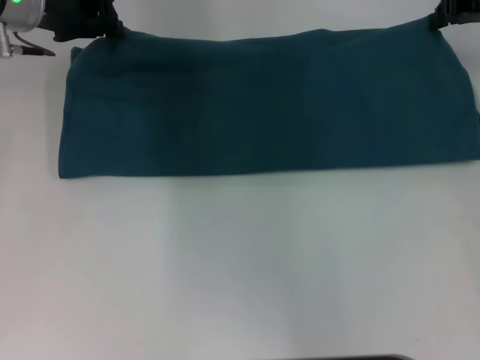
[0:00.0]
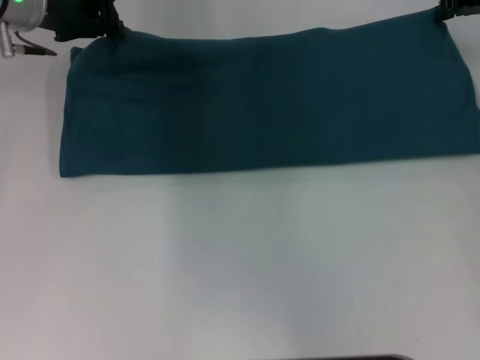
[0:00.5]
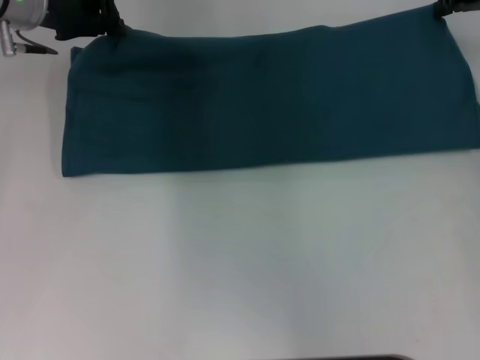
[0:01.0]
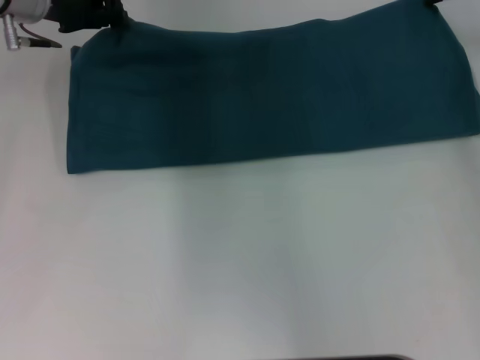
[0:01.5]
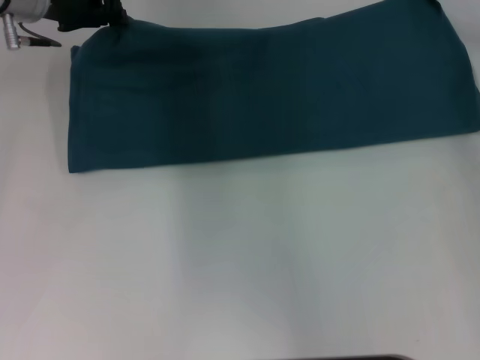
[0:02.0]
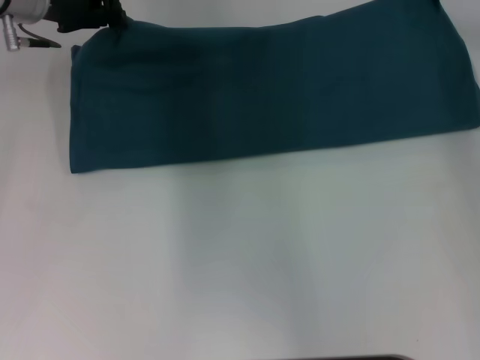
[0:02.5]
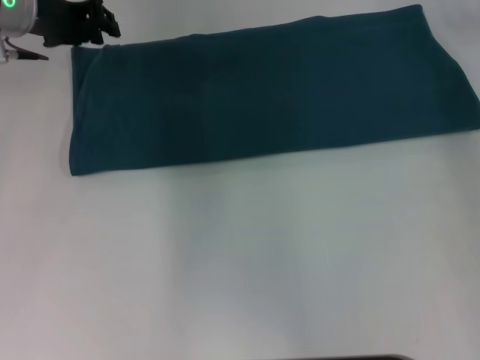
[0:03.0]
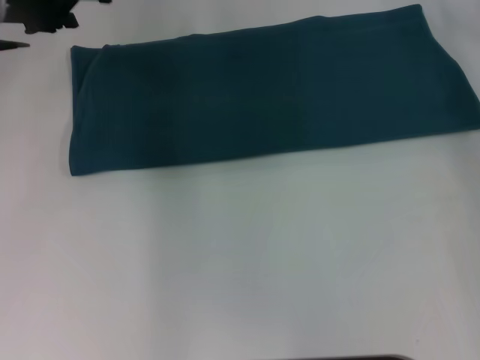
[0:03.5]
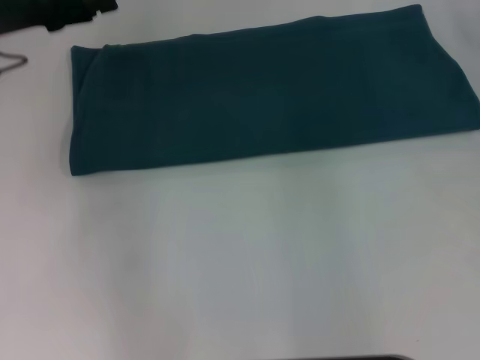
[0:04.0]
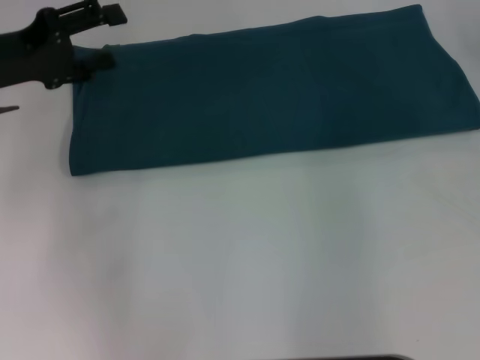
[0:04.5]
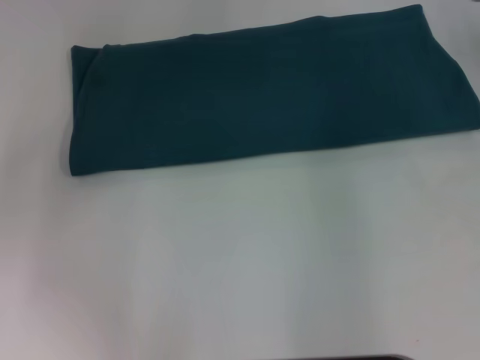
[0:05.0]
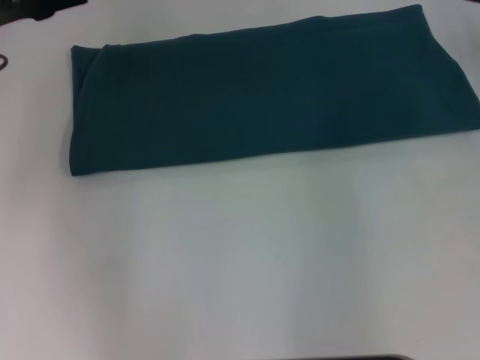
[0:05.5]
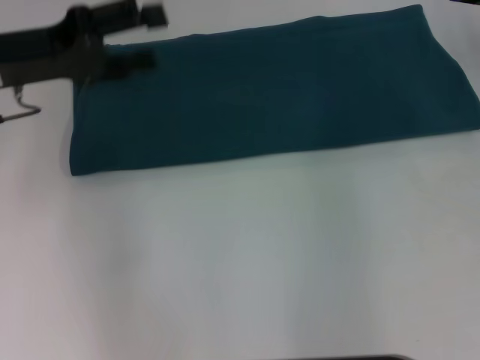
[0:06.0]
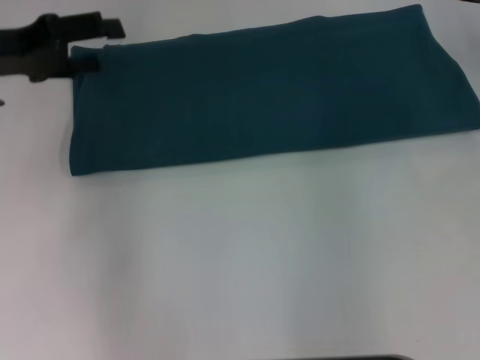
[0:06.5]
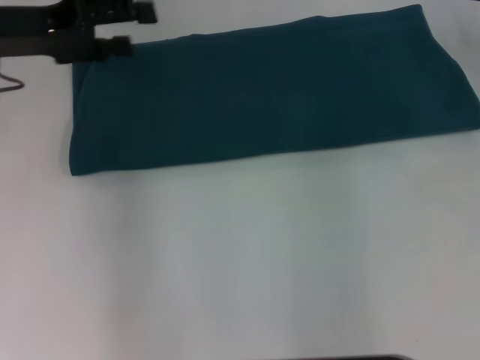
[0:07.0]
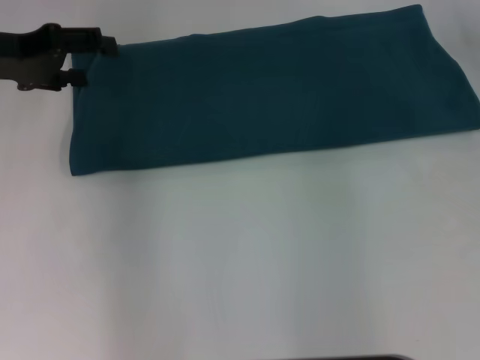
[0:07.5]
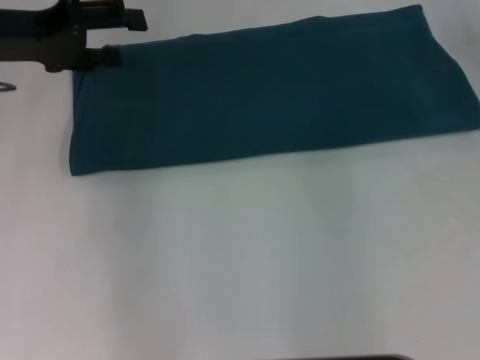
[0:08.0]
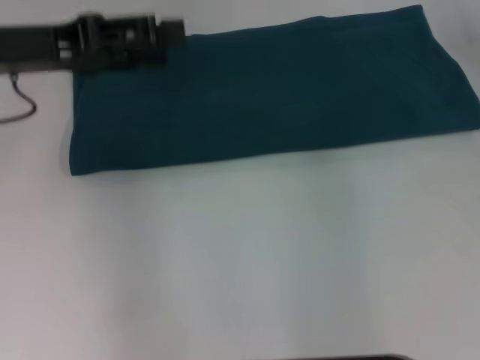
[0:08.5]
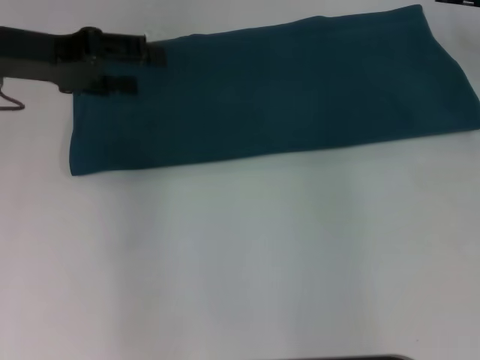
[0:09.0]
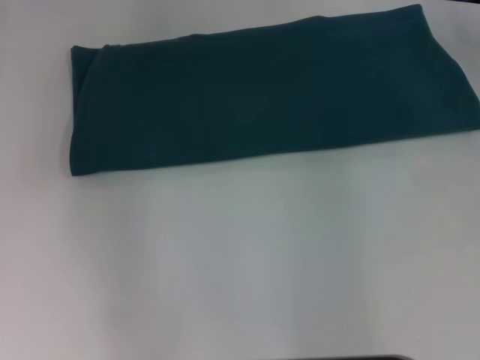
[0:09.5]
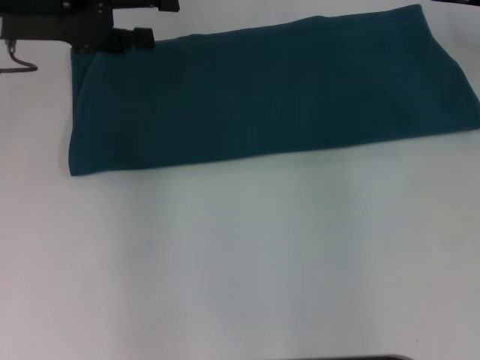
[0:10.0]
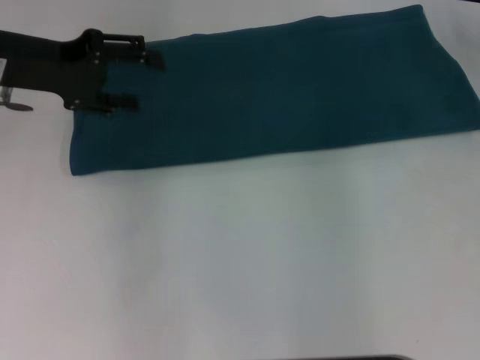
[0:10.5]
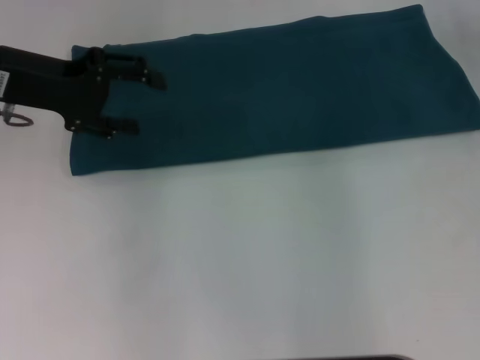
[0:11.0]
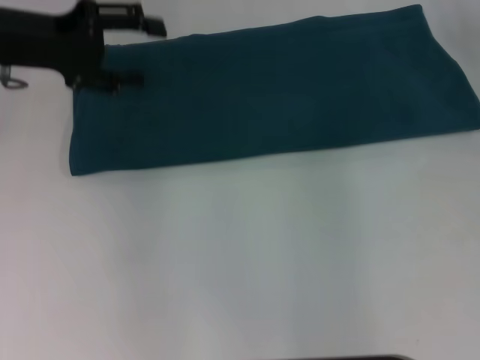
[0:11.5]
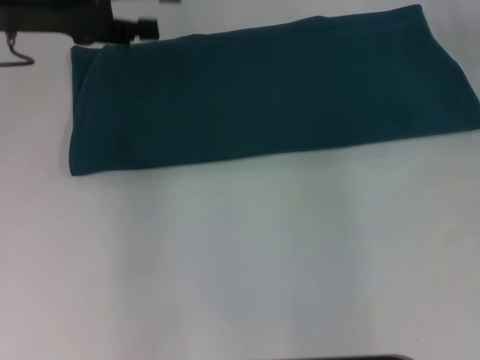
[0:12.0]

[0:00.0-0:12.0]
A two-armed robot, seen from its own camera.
Step, 0:00.0 to 0:03.0: Fold the clothes to the right.
0:00.0 to 0:02.0: The grippers stay close to where they were, moving slightly.
0:02.0 to 0:04.0: The right gripper moves backward, approximately 5 cm, and opens. The left gripper moves backward and to the left, roughly 10 cm, and opens.

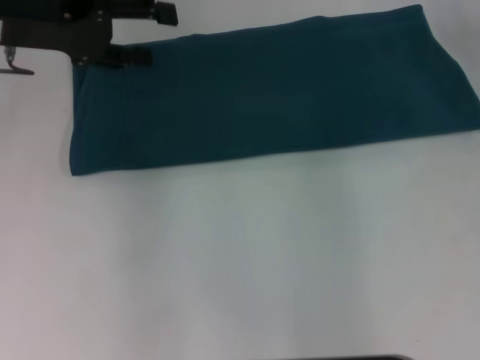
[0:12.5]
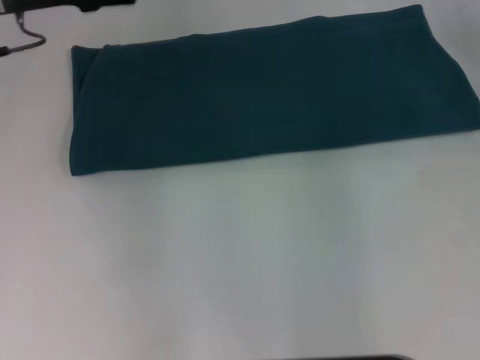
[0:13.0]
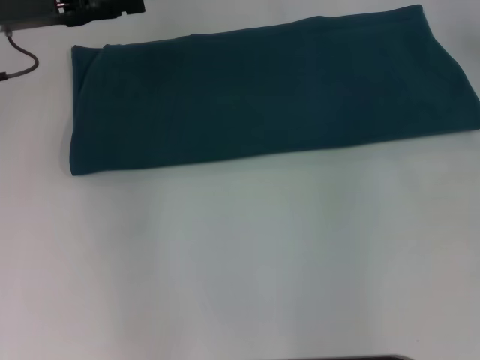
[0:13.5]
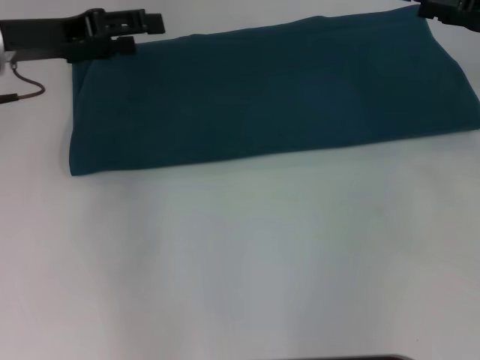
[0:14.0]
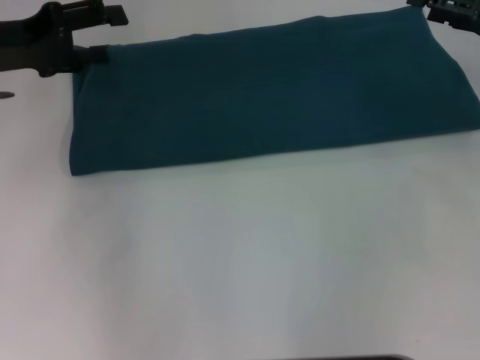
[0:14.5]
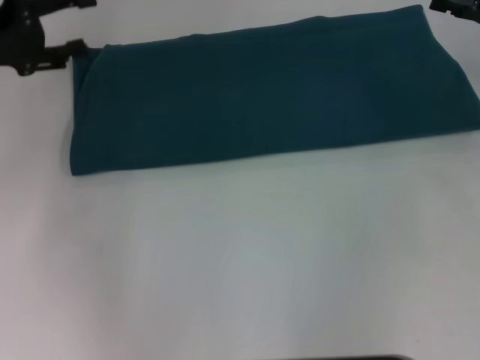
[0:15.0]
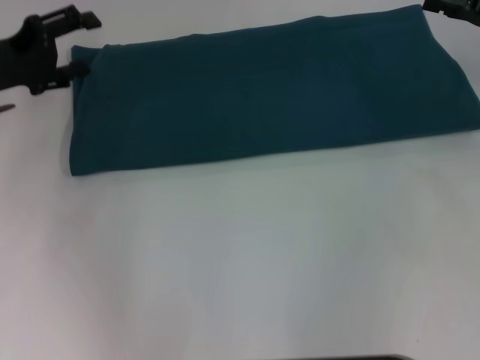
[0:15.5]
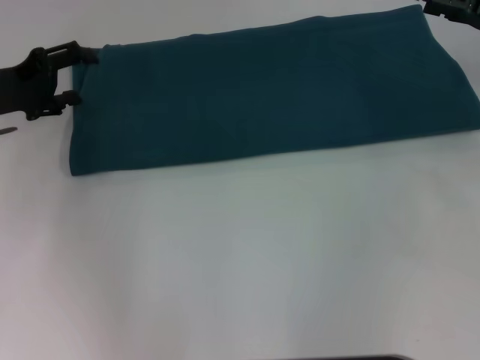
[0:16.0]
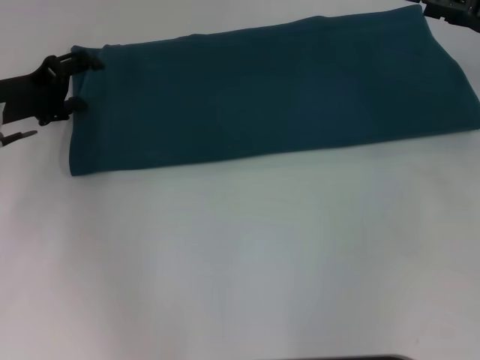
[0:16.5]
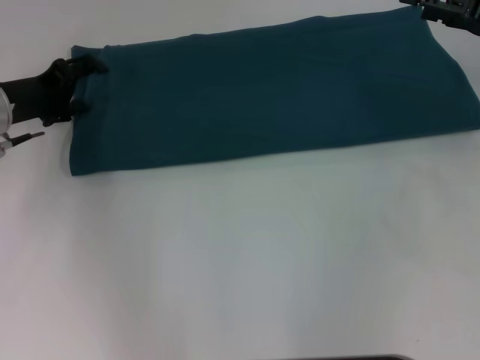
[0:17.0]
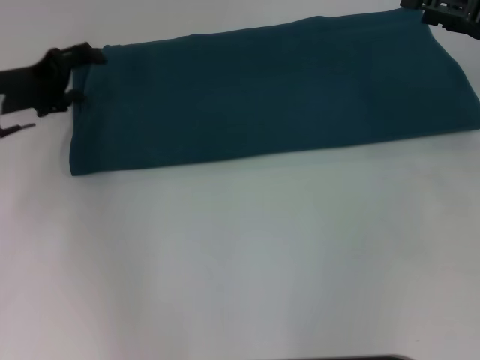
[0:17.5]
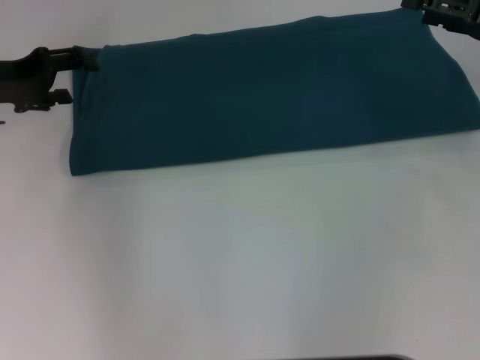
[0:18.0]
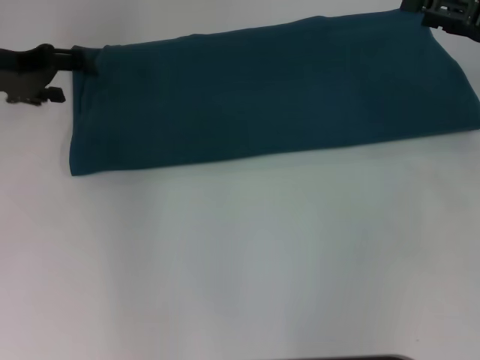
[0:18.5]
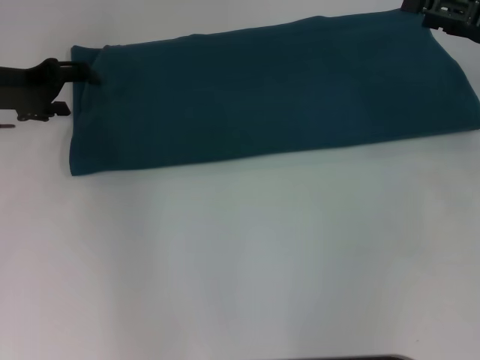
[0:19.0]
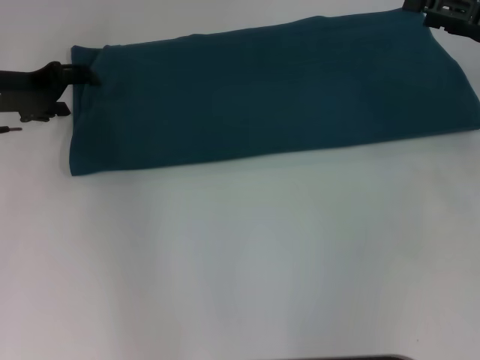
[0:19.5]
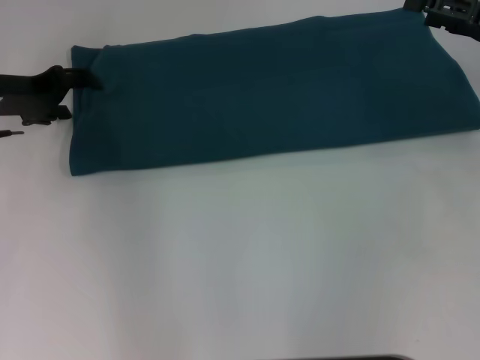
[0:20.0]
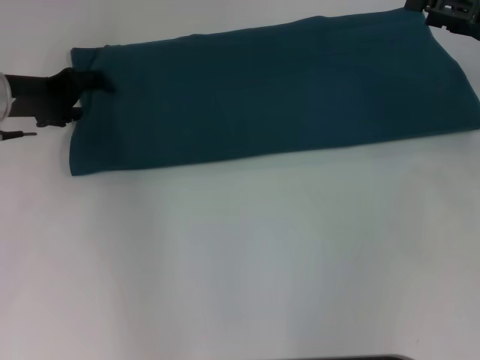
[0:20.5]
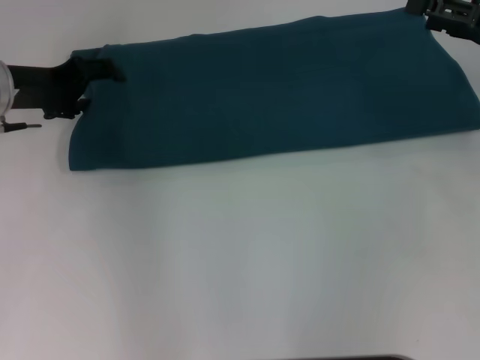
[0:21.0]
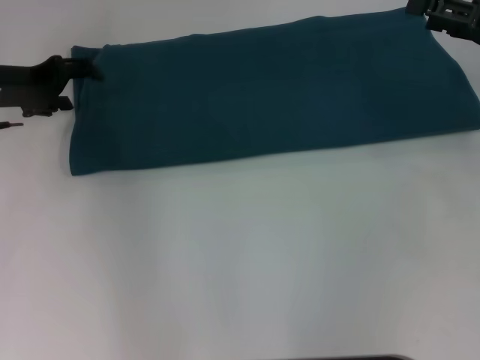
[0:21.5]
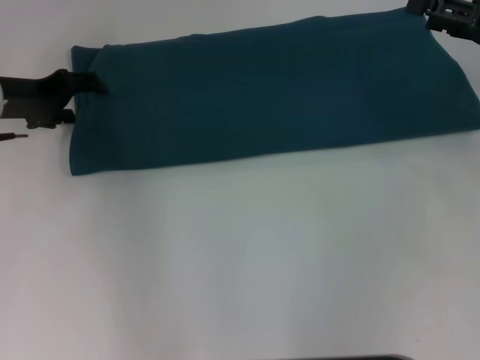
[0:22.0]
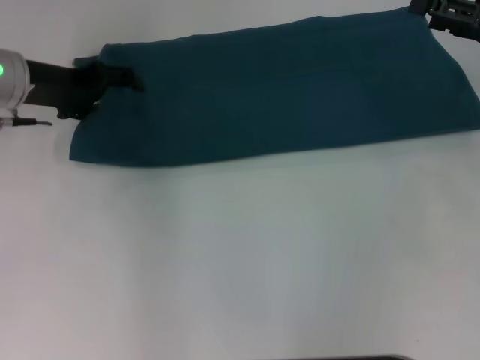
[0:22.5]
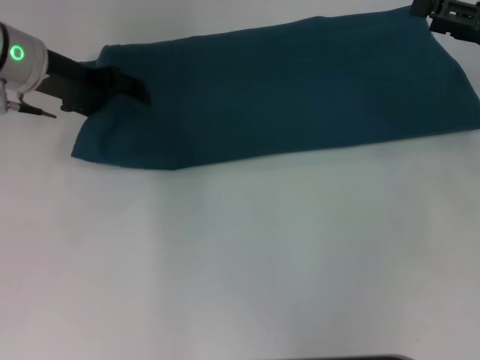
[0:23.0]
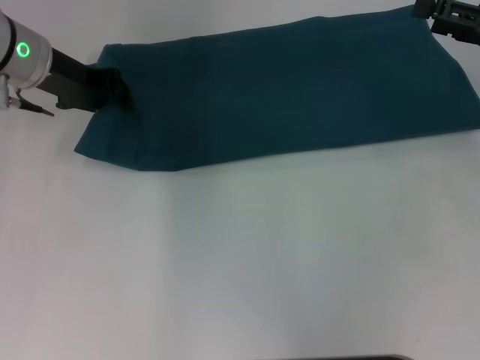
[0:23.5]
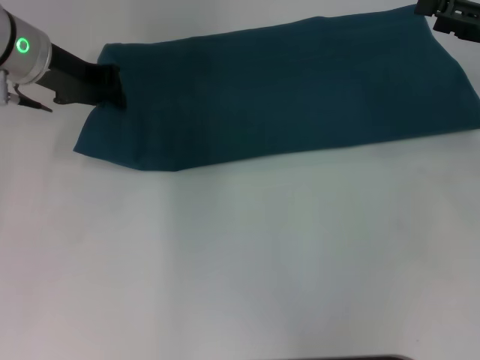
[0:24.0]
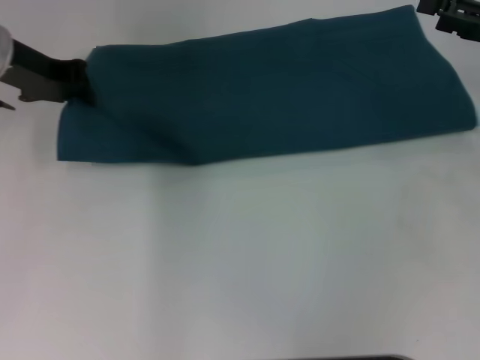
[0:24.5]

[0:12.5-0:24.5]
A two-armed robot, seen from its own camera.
0:12.5 to 0:14.5: The left gripper changes place by some 5 cm, while the right gripper travels backward by approximately 5 cm, and opens up.
0:14.5 to 0:16.5: The left gripper shifts approximately 10 cm downward.
0:16.5 to 0:18.5: The left gripper shifts approximately 5 cm upward.
0:18.5 to 0:22.5: There are only small adjustments of the grippers.
0:22.5 to 0:24.5: The left gripper closes its fingers.

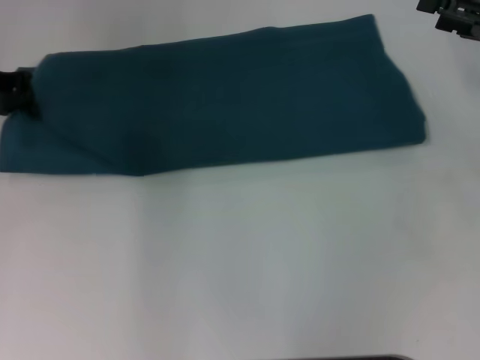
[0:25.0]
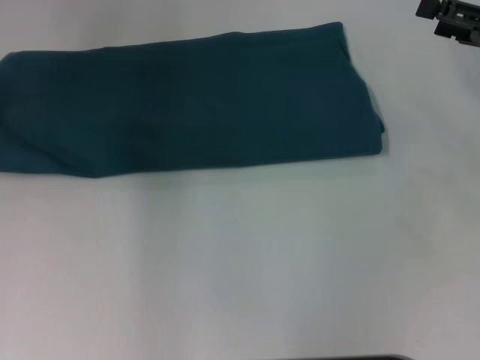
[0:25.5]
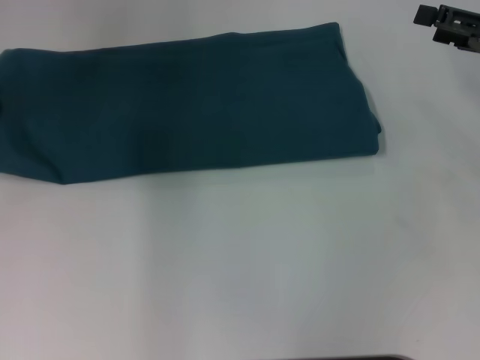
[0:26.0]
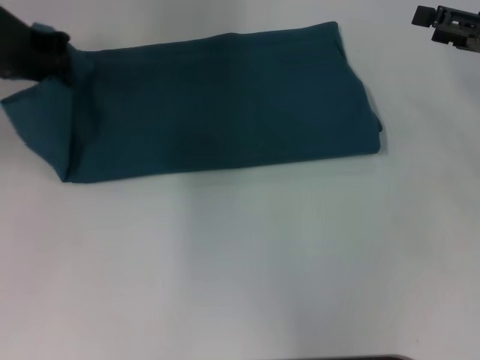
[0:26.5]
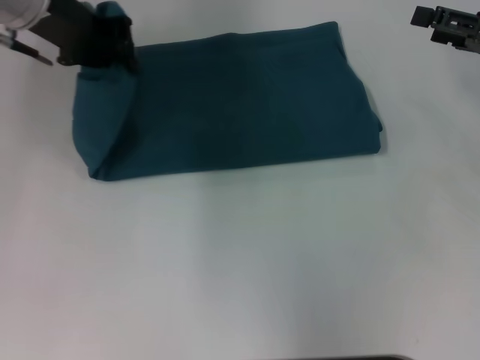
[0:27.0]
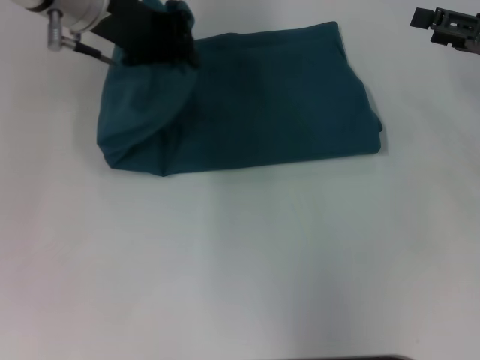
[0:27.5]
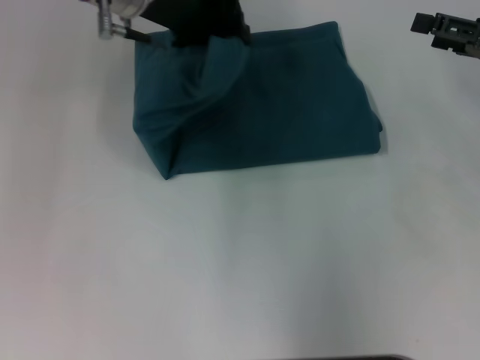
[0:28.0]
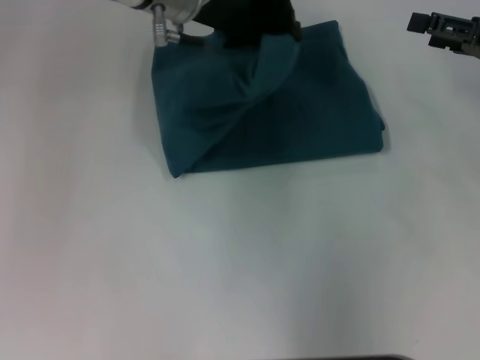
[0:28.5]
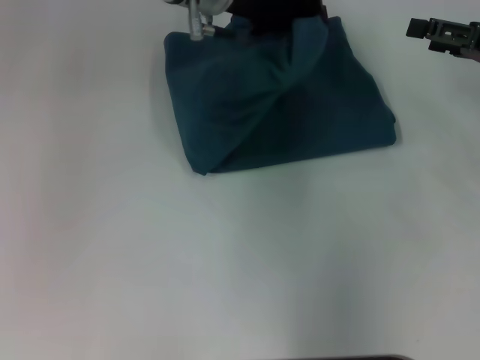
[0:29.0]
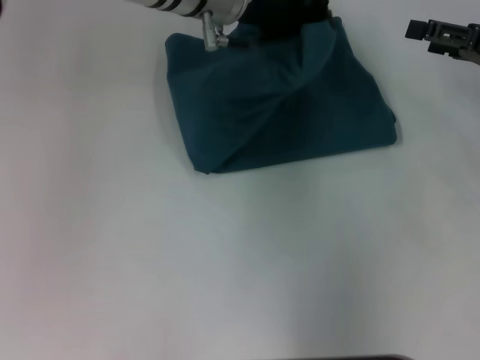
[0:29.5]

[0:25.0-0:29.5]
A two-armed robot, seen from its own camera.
0:25.0 to 0:27.0: The left gripper heads to the right and upward, covering some 10 cm.
0:27.0 to 0:29.5: The left gripper is displaced to the right by about 15 cm.
